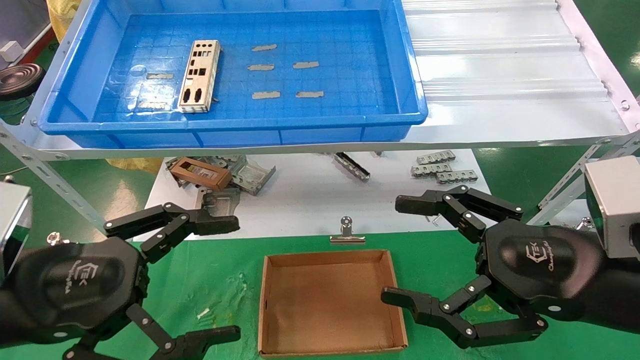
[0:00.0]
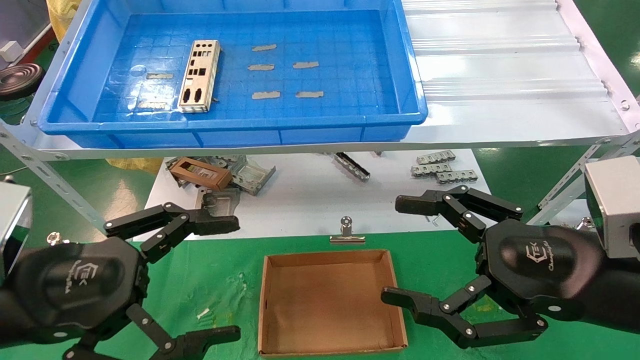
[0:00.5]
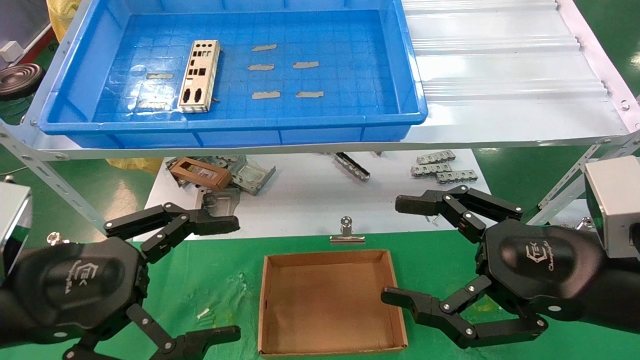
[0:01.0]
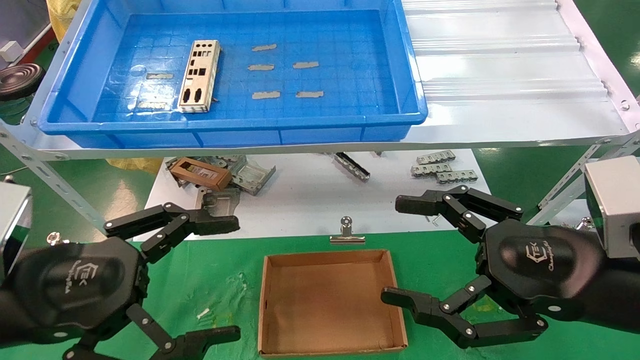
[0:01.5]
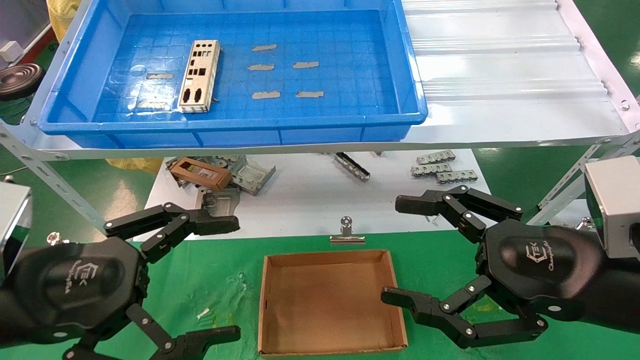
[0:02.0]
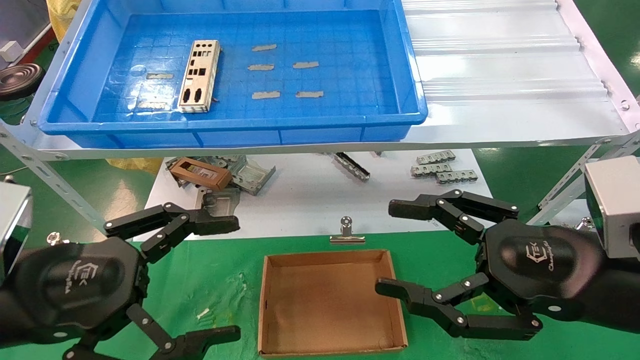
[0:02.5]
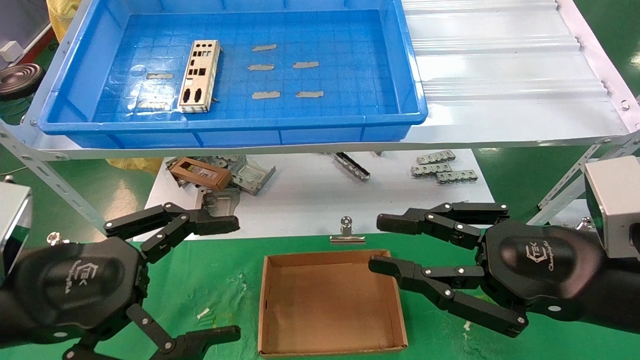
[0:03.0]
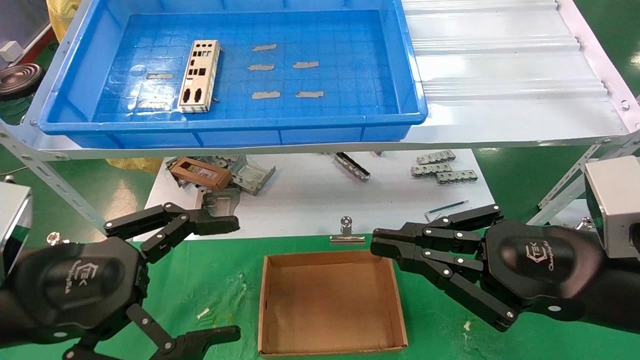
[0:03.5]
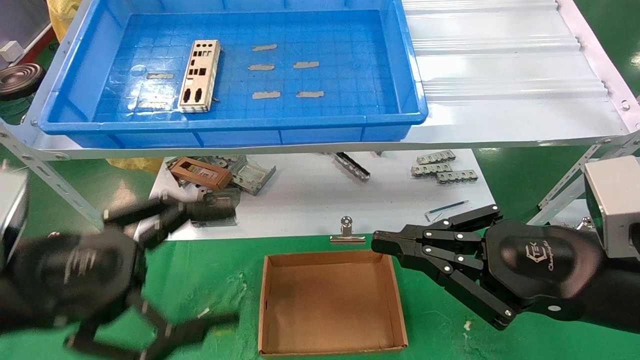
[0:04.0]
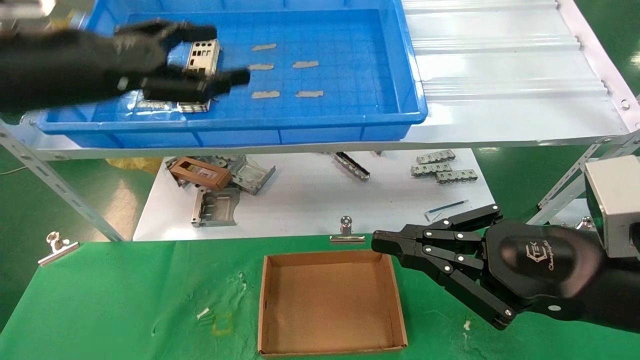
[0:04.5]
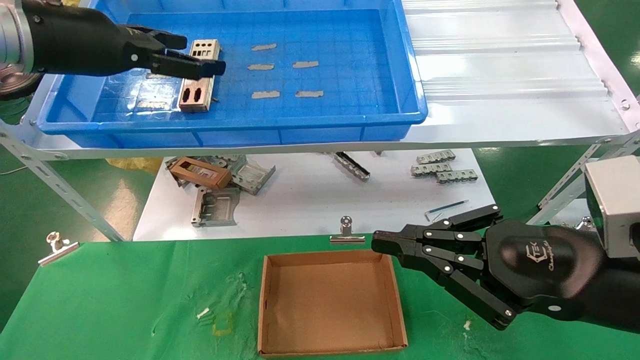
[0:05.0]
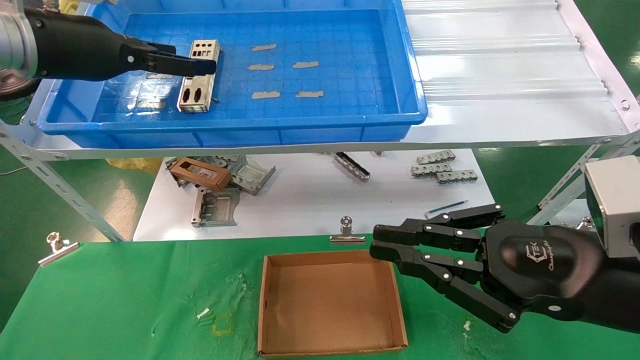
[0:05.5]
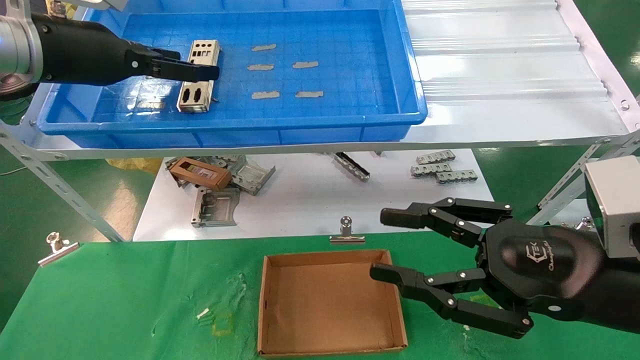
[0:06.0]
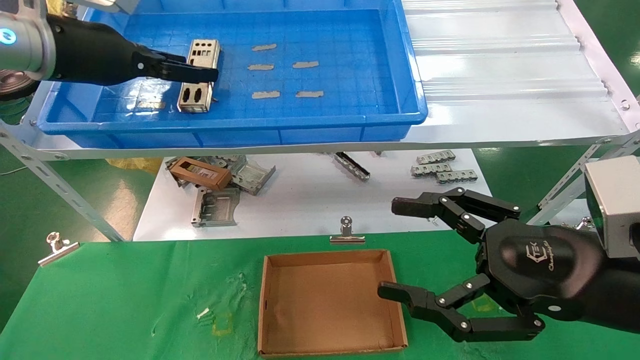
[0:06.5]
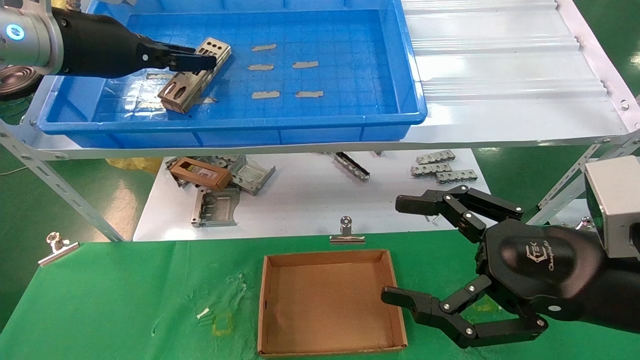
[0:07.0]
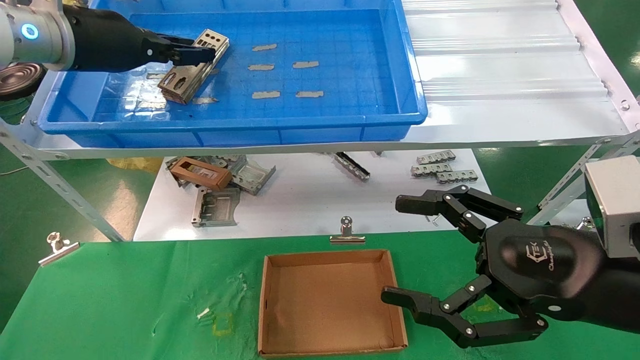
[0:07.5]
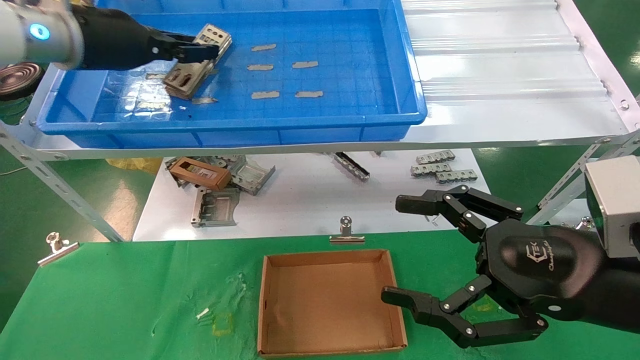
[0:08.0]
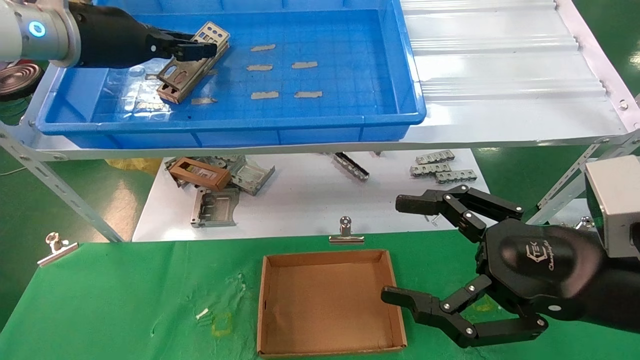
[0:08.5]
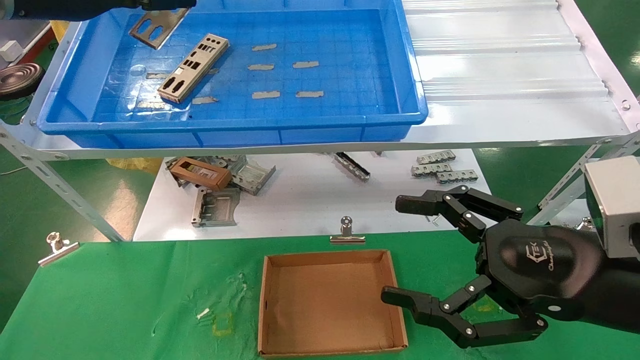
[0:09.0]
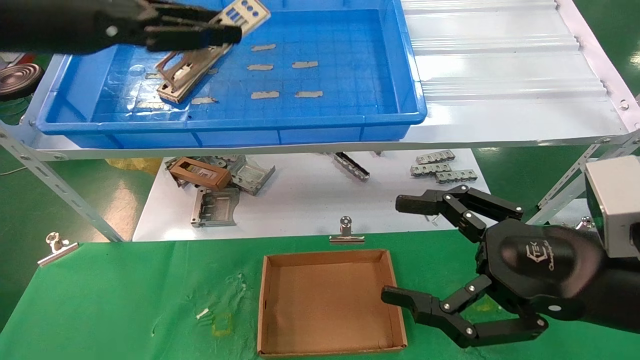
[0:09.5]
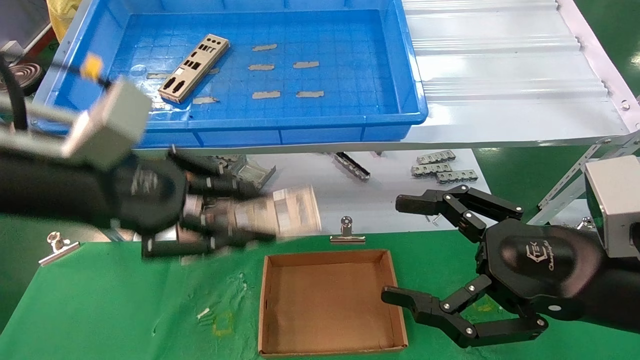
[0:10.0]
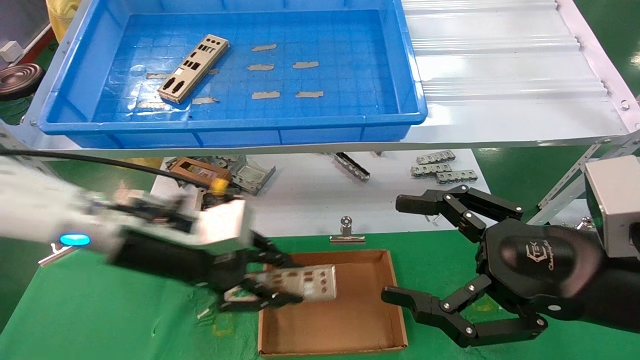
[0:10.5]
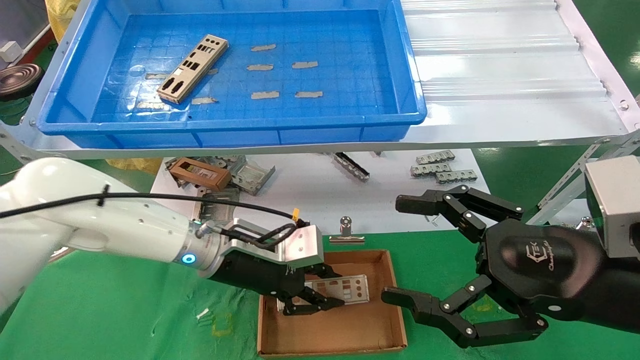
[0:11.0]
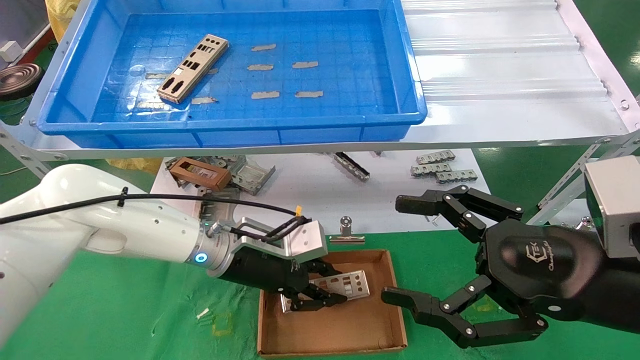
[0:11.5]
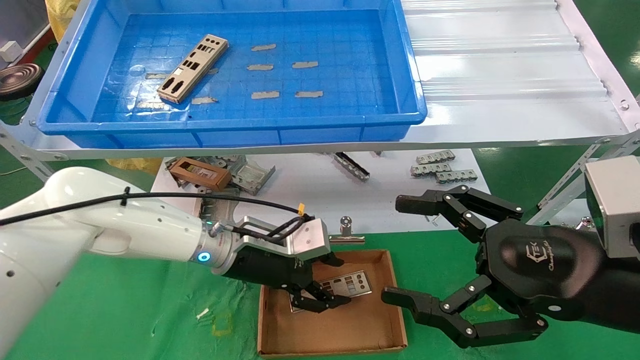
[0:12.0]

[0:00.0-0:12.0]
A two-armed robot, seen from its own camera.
Task of the whole recording: pick up the parts on the tray and put them in the cardboard box.
Step, 0:04.5 to 0:07.0: Pick up the IO bracket from the container box.
Step, 0:07.5 to 0:11.5: Place the IO bracket into the ingredient slot.
0:00.0 to 0:02.0: Both grippers stay put.
0:02.0 to 0:04.0: The right gripper closes up.
0:04.0 to 0:06.0: The right gripper opens up, while the left gripper shifts about 25 cm forward and upward.
0:06.0 to 0:08.0: The right gripper opens up. Meanwhile the left gripper closes.
0:08.0 to 0:10.0: The left gripper heads backward and downward, covering approximately 20 cm.
0:10.0 to 0:12.0: The left gripper travels downward, forward and to the right by about 25 cm.

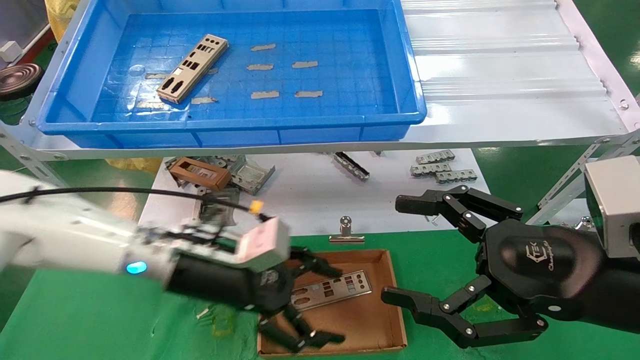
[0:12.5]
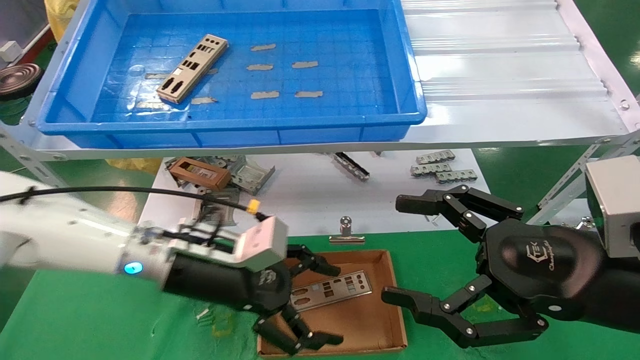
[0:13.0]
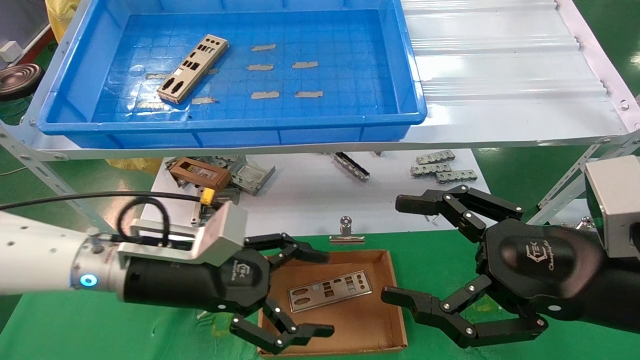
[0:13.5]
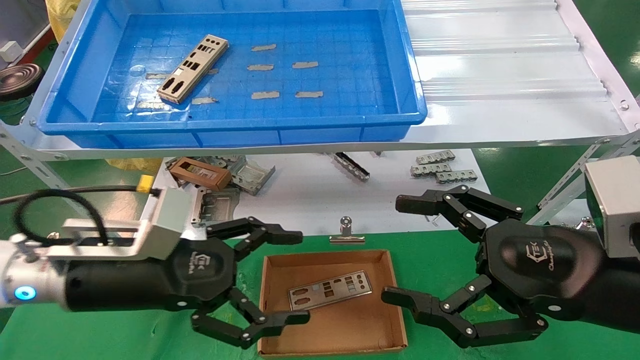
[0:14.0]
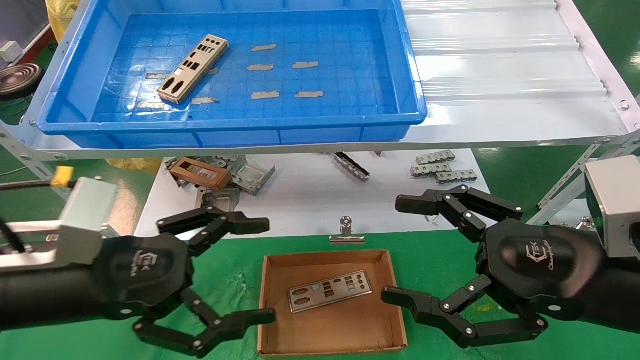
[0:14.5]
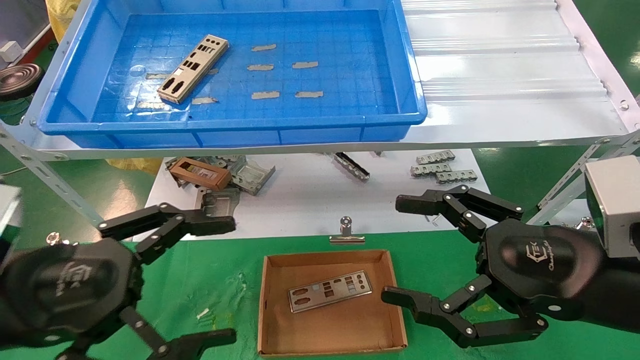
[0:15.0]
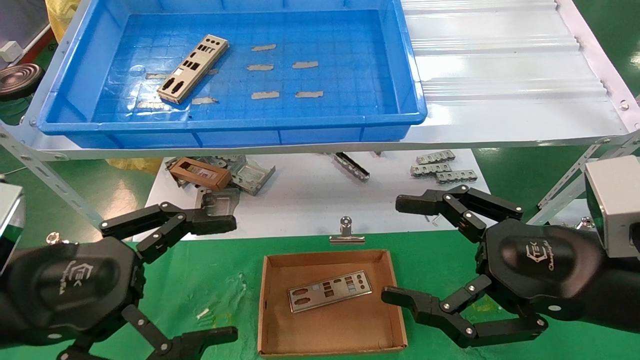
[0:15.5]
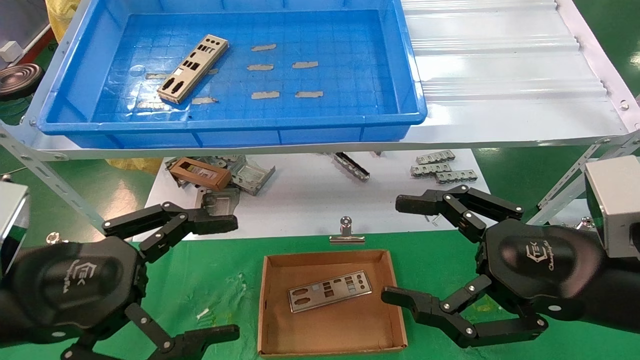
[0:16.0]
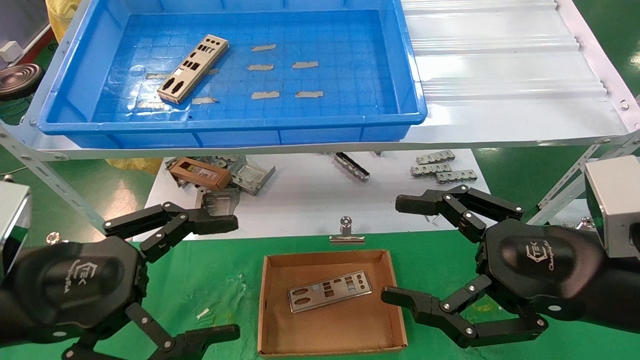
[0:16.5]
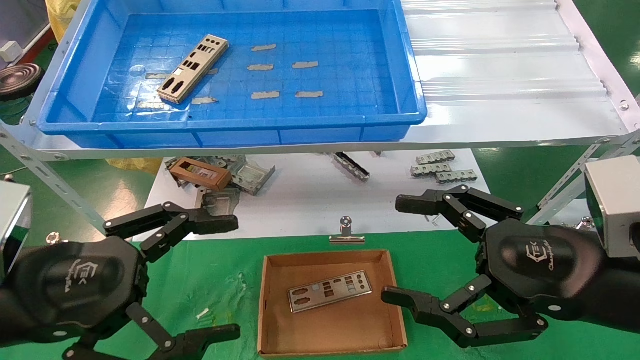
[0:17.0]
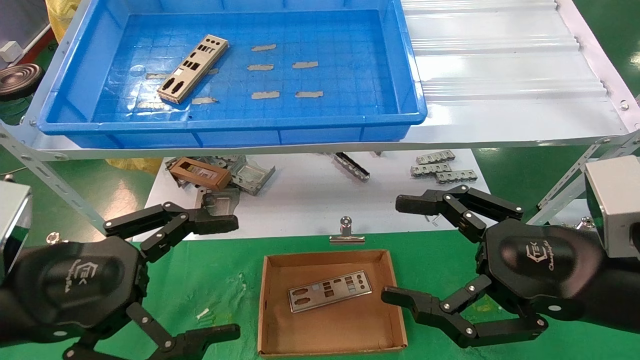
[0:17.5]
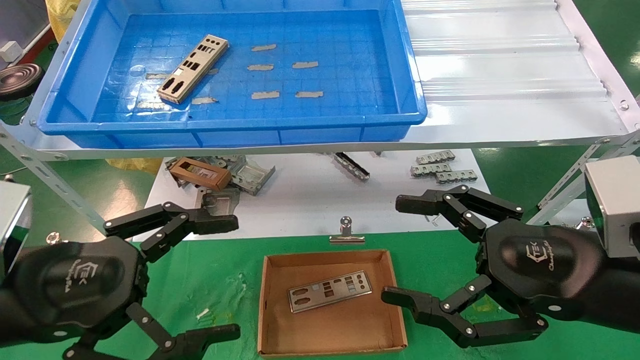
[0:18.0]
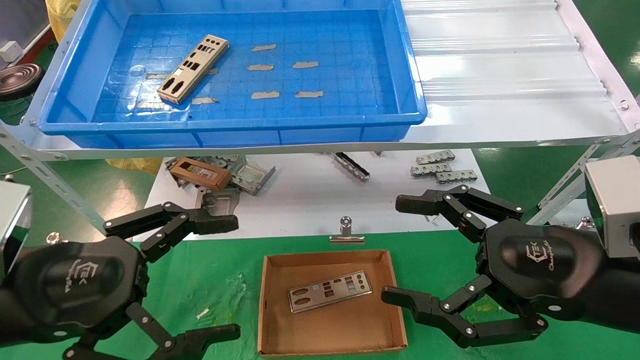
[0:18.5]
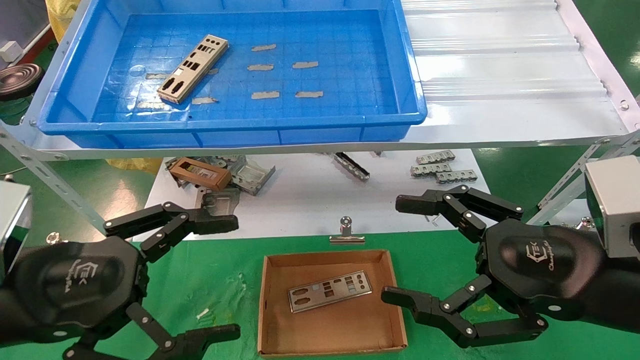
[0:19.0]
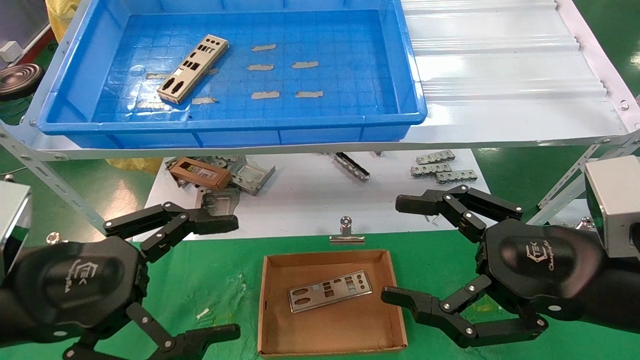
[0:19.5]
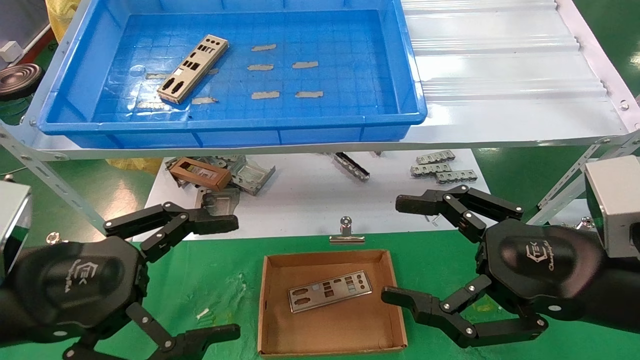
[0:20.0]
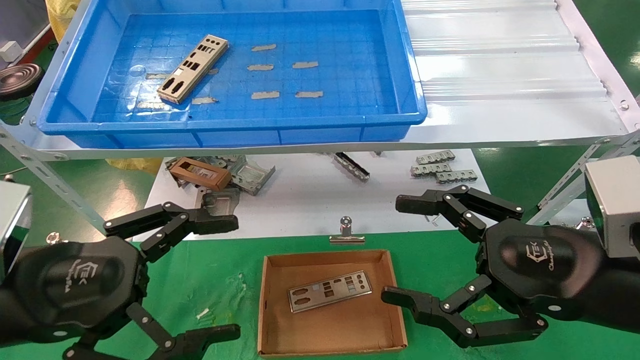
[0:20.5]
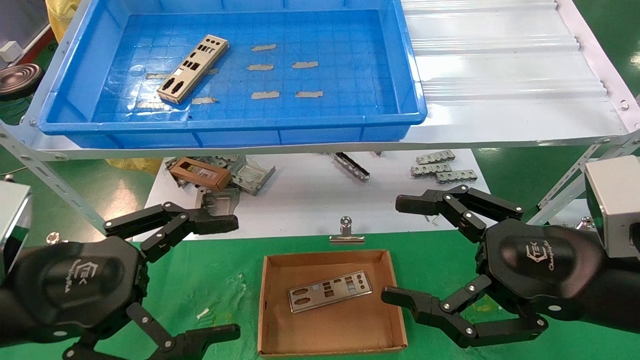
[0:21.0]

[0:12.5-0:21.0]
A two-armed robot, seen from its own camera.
Task of the whole recording: pick up the parts on the tray and put them in the cardboard box.
0:12.5 to 0:14.5: The left gripper goes about 15 cm backward and to the left.
0:14.5 to 0:16.5: The left gripper moves approximately 5 cm.
0:16.5 to 0:21.0: Both grippers stay put.
